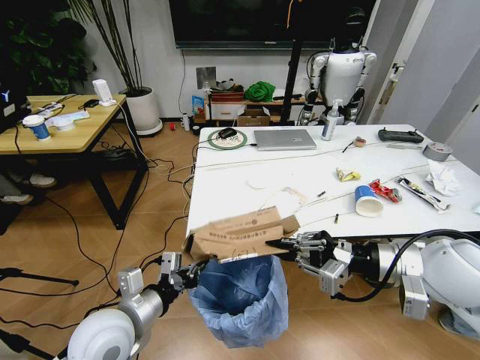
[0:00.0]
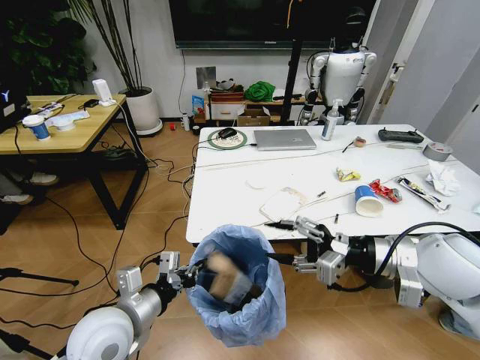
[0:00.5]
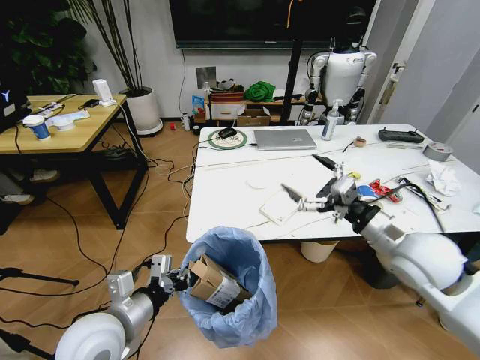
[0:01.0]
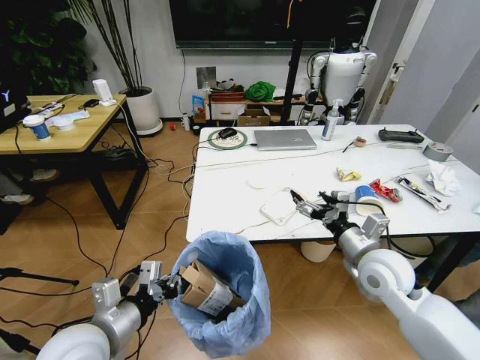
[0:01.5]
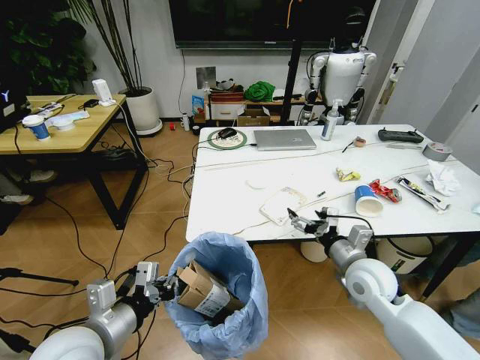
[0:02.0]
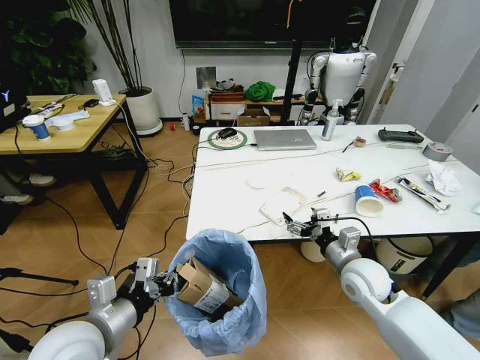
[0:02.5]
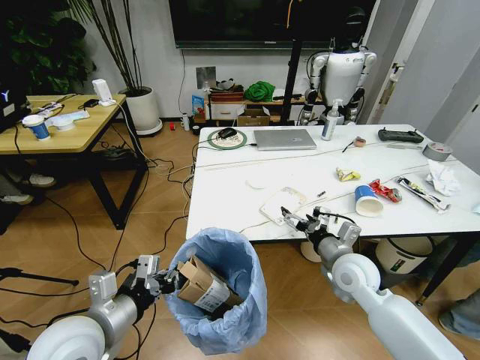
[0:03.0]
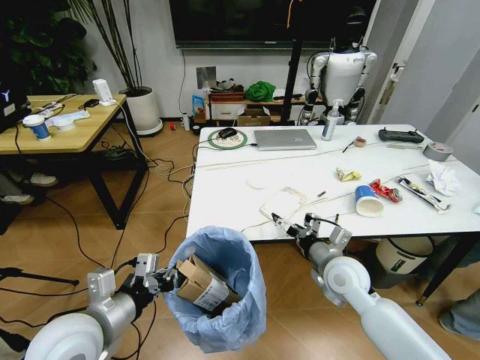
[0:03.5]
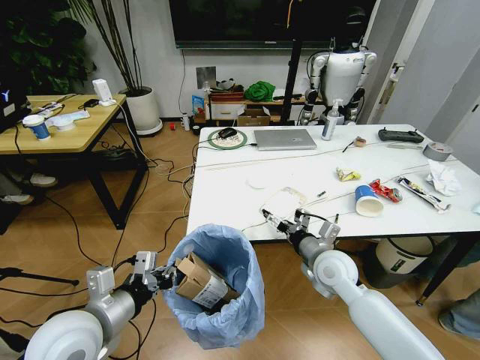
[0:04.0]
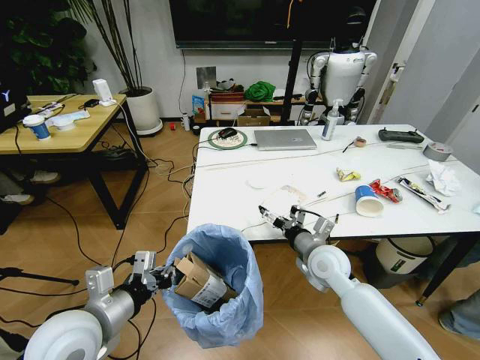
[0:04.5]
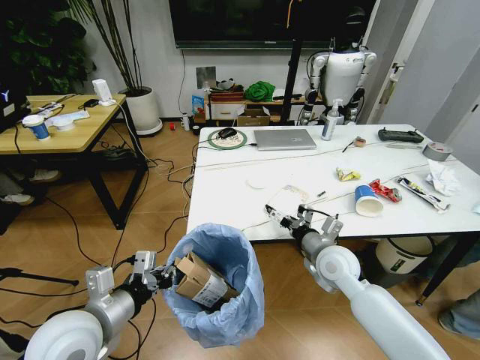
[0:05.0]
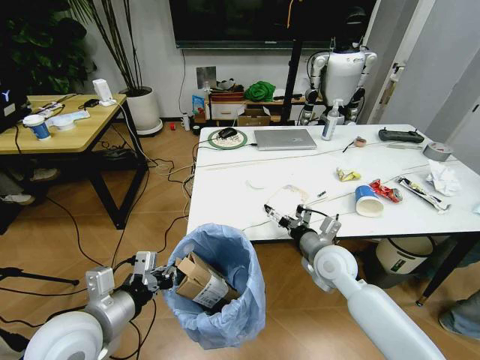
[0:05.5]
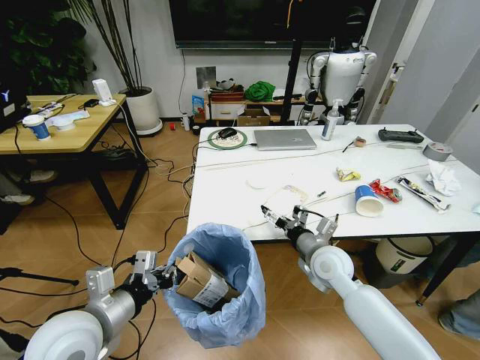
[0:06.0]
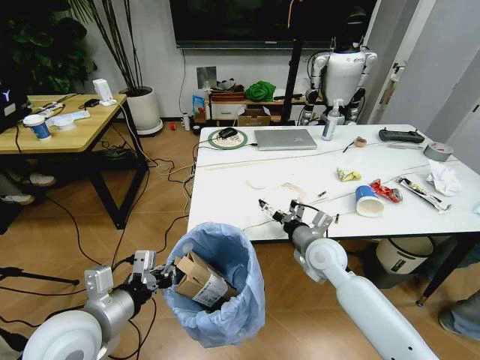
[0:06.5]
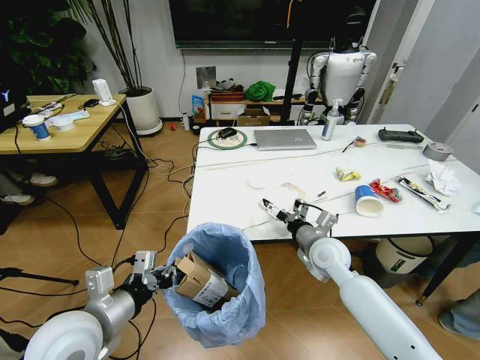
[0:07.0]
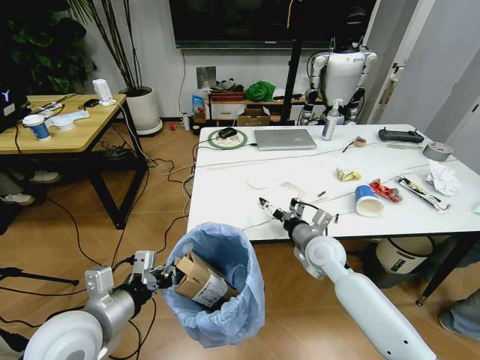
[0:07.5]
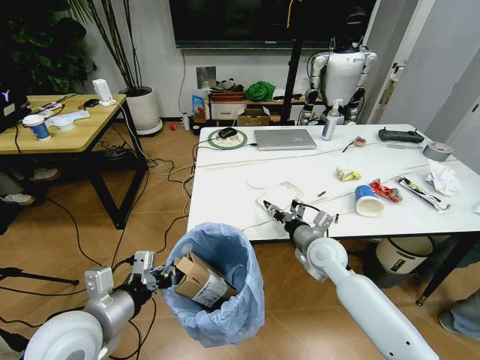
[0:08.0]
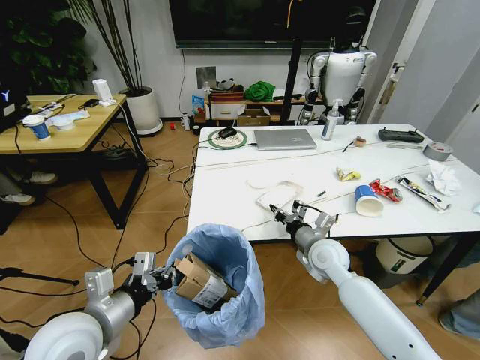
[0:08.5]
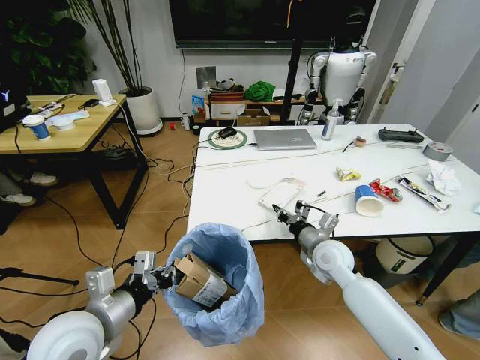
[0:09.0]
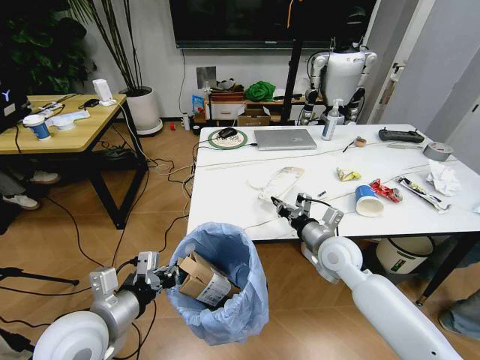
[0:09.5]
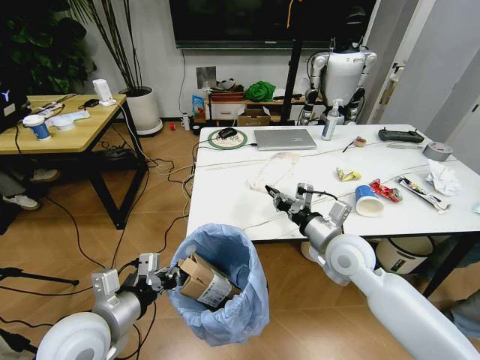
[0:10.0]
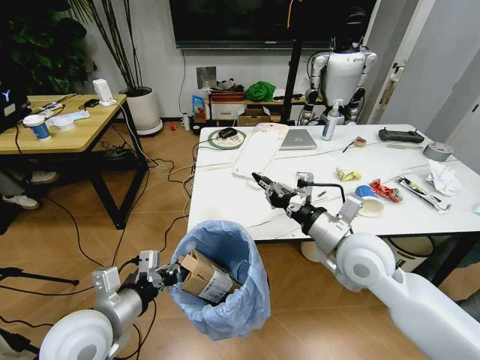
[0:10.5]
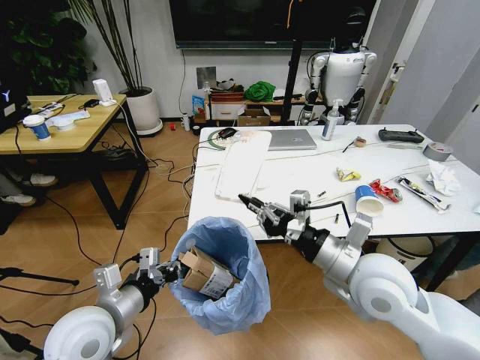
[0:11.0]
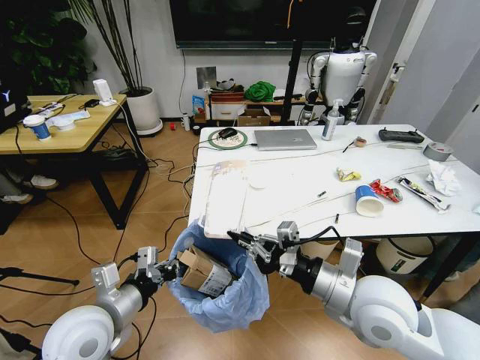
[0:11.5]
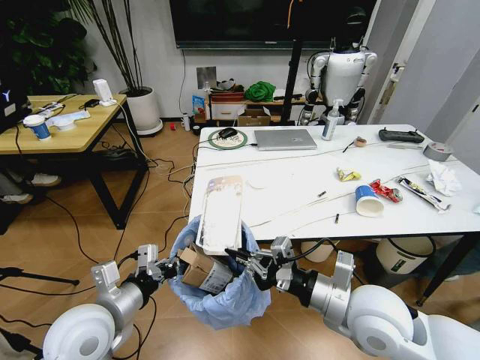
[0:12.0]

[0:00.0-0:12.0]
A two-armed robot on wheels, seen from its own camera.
Task of the whole recording: Pick up the trash bin and place the trash from the table into it.
0:00.0 to 0:02.0: The right gripper shifts roughly 15 cm downward, and opens its fingers.
0:02.0 to 0:04.0: The right gripper is displaced to the left by roughly 5 cm.
0:04.0 to 0:06.0: The grippers stay close to where they were, moving slightly.
0:06.0 to 0:08.0: The right gripper closes up.
0:08.0 to 0:10.0: The right gripper is displaced upward by approximately 10 cm, and closes.
0:10.0 to 0:12.0: The right gripper heads backward, covering roughly 10 cm.

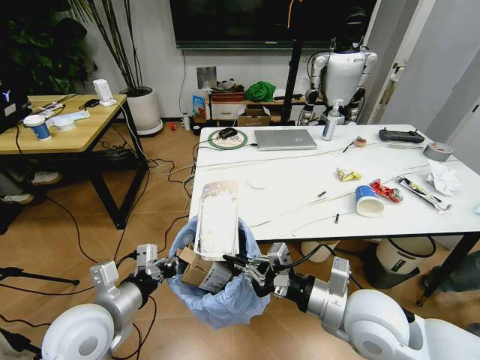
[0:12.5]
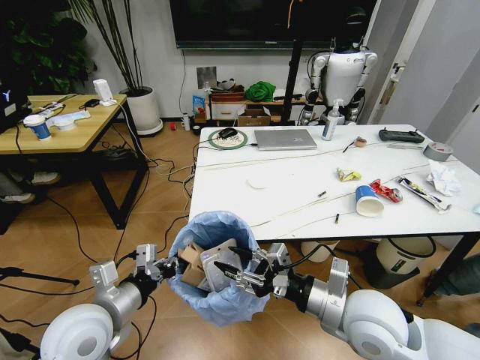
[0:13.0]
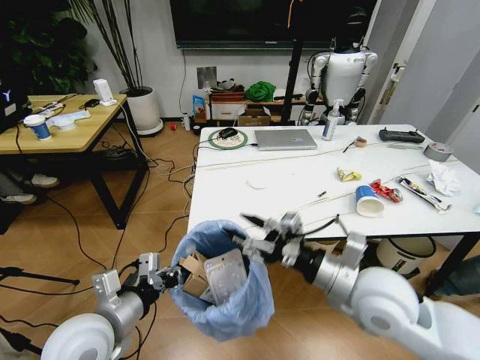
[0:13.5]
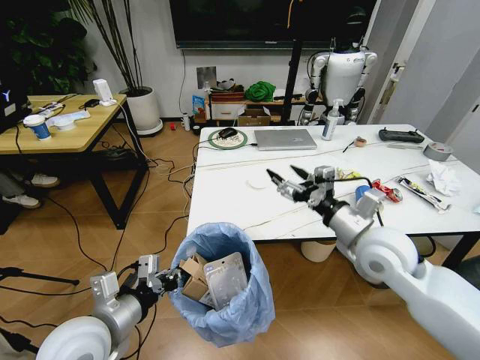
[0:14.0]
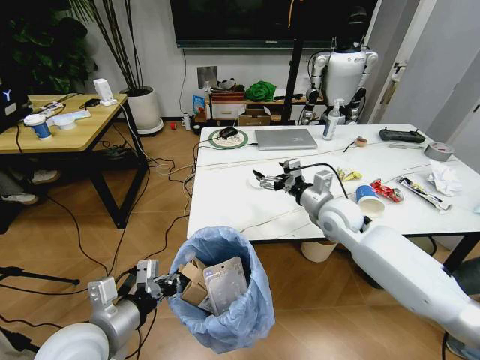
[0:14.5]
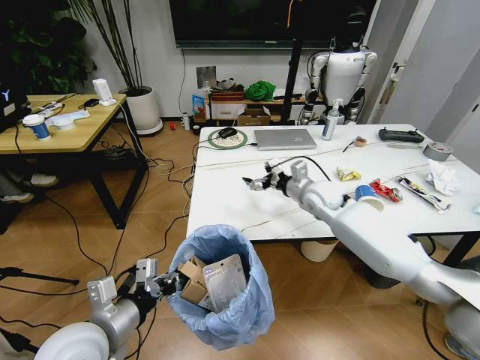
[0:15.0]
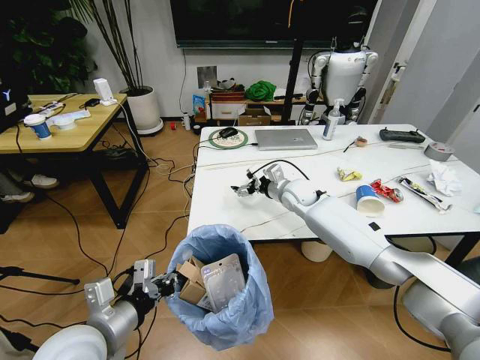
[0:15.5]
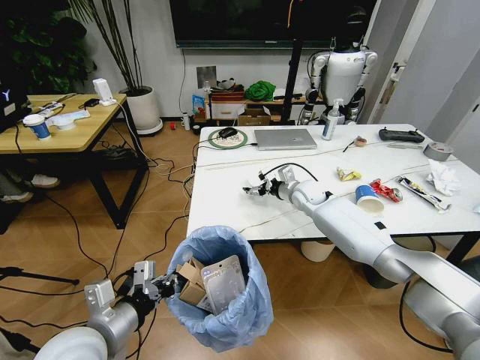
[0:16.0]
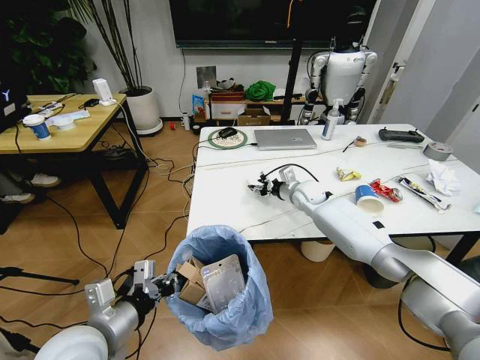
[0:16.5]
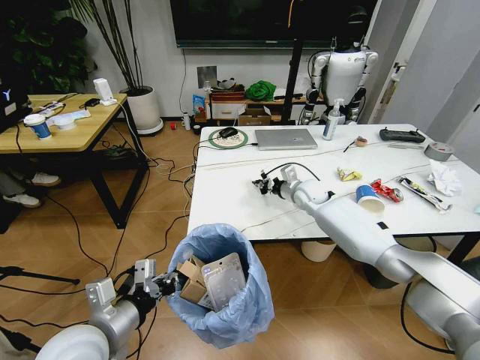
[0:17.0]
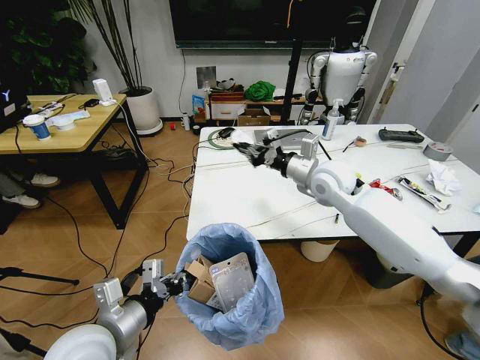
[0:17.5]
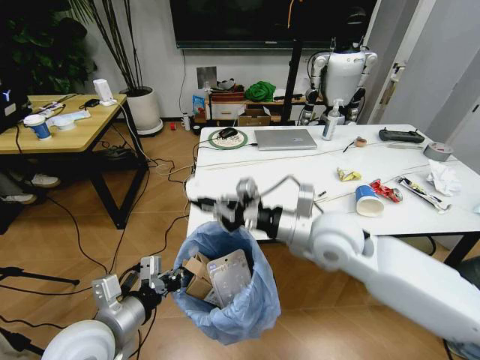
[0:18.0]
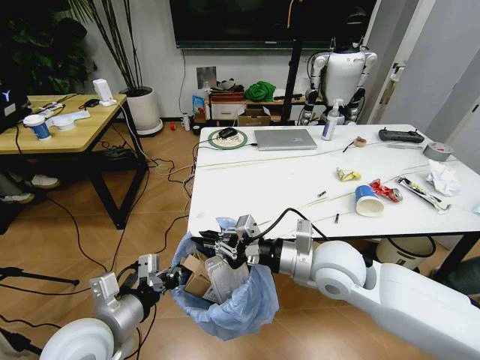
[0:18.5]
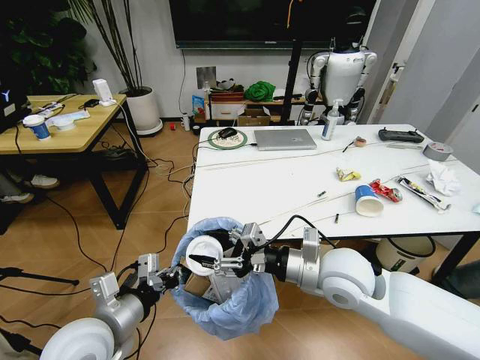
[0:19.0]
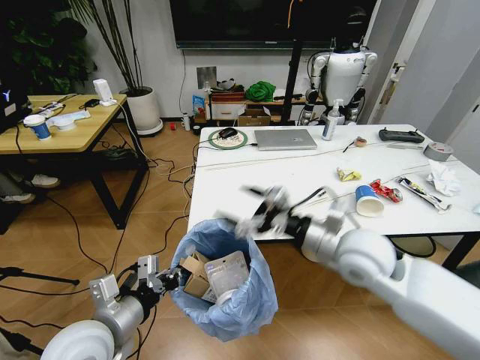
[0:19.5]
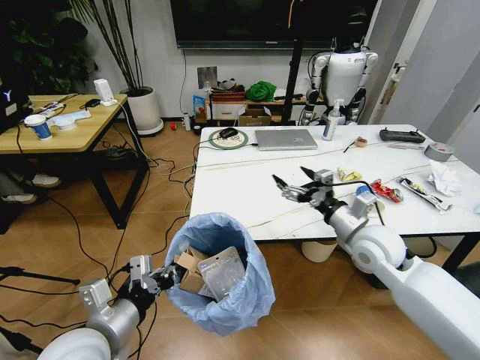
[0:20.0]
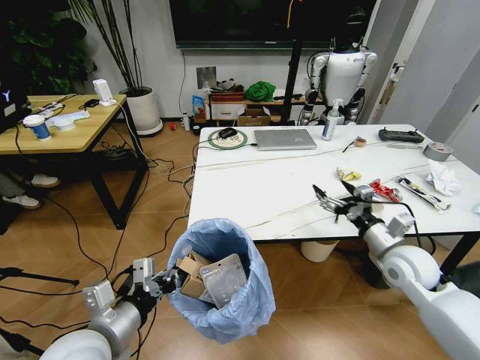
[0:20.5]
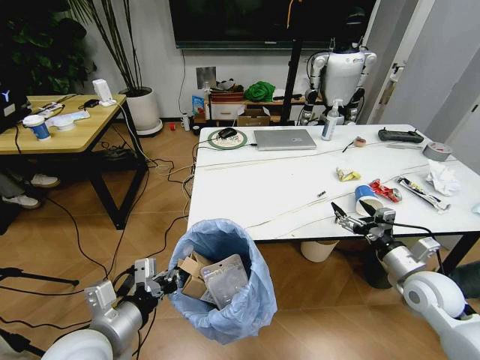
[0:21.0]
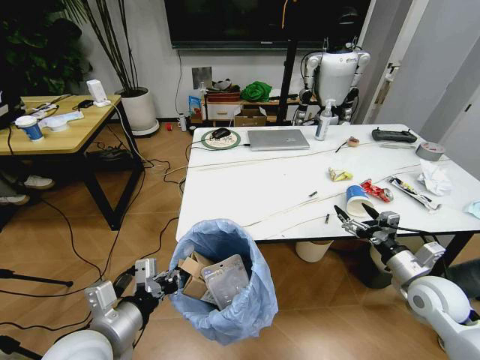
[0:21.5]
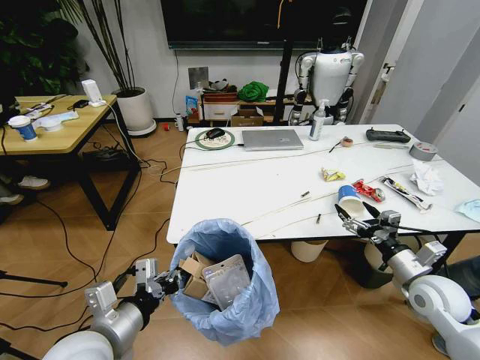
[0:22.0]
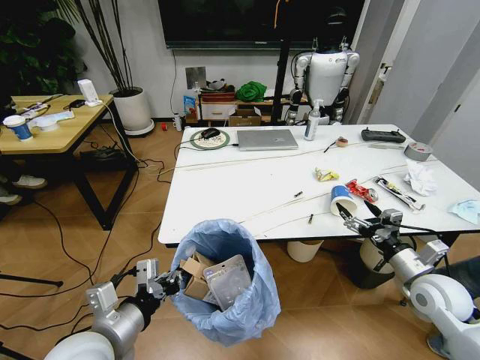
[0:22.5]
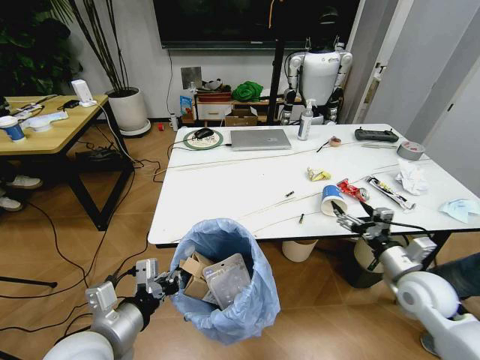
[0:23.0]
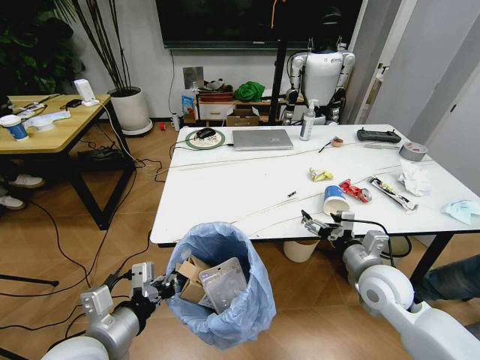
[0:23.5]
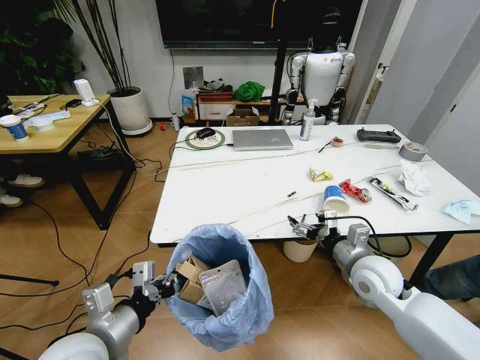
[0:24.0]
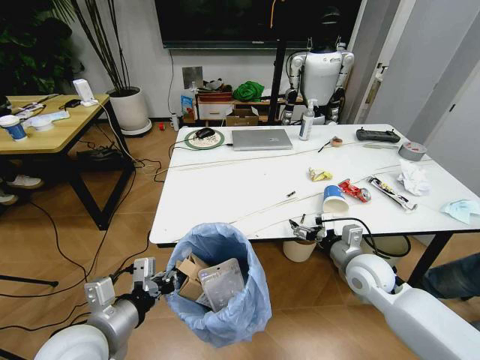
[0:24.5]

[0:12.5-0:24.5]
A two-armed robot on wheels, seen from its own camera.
Task of the whole recording: Pick up the trash bin and place the trash from the table into it.
0:12.5 to 0:14.5: The right gripper goes roughly 20 cm forward, and opens up.
0:14.5 to 0:16.5: The right gripper goes about 15 cm forward and downward, and closes up.
0:16.5 to 0:18.5: The right gripper shifts approximately 30 cm backward, and closes up.
0:18.5 to 0:20.5: The right gripper shifts some 20 cm to the right, and opens.
0:20.5 to 0:22.5: The right gripper ends up some 5 cm from where it was.
0:22.5 to 0:24.5: The right gripper moves to the left and forward, some 15 cm.

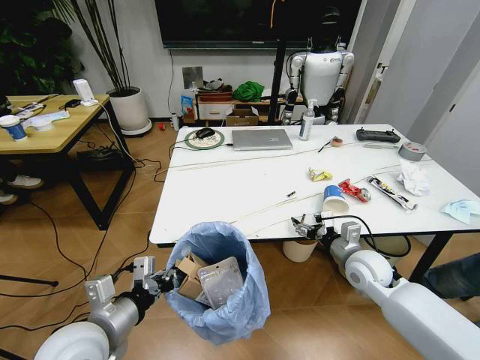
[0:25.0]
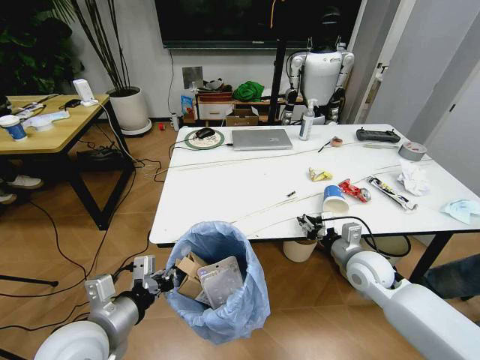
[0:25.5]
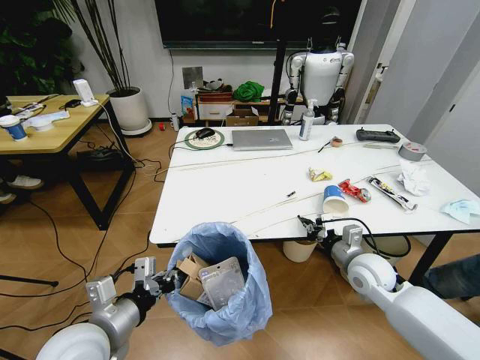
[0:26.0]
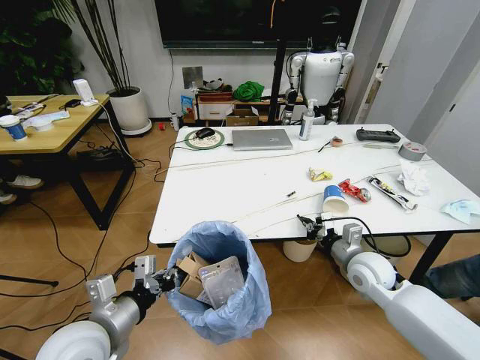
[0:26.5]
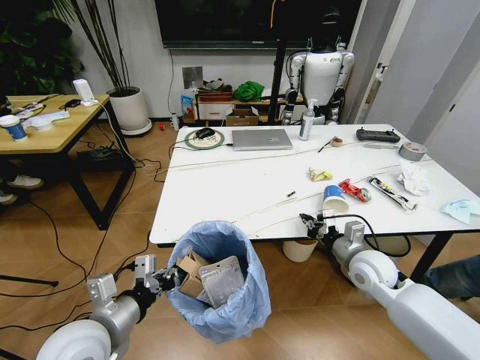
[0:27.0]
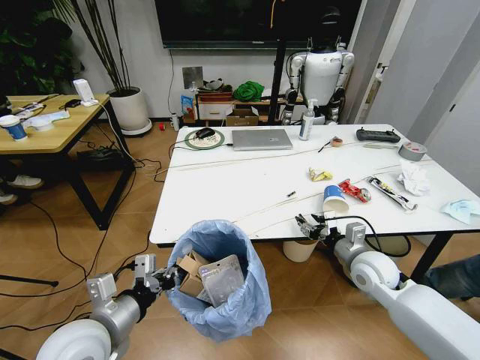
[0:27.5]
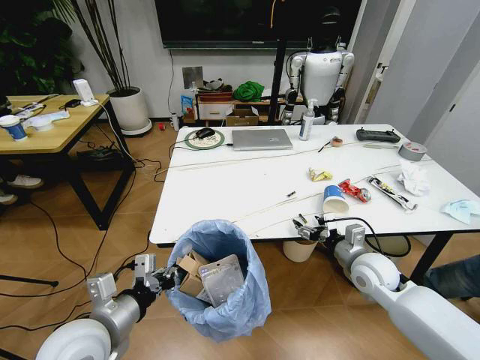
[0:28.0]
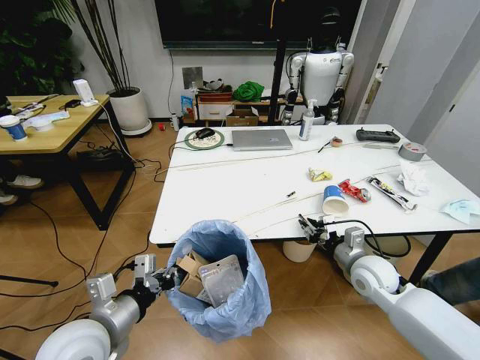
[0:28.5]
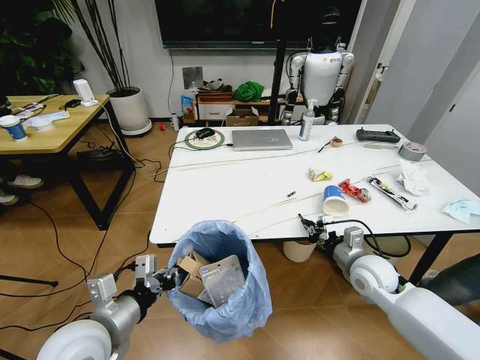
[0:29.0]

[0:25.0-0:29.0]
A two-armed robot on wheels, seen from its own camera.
Task of the whole recording: Pick up the trash bin and place the trash from the table into it.
0:25.0 to 0:27.0: The right gripper closes its fingers.
0:27.0 to 0:29.0: The right gripper opens, then closes again.
